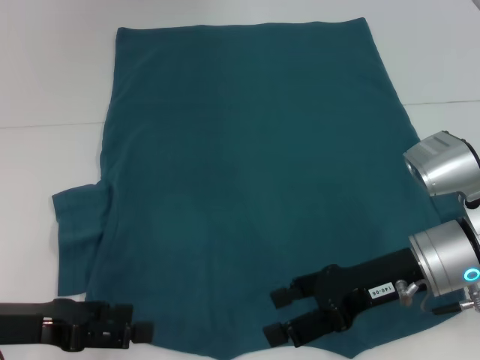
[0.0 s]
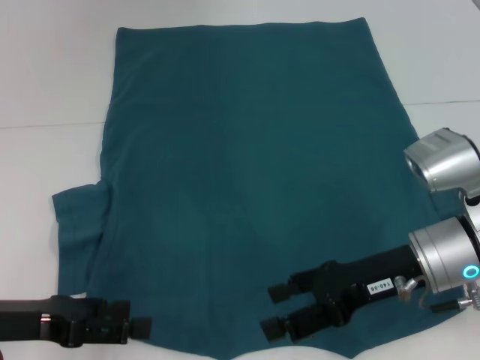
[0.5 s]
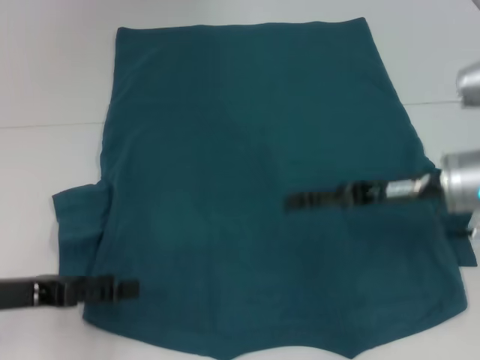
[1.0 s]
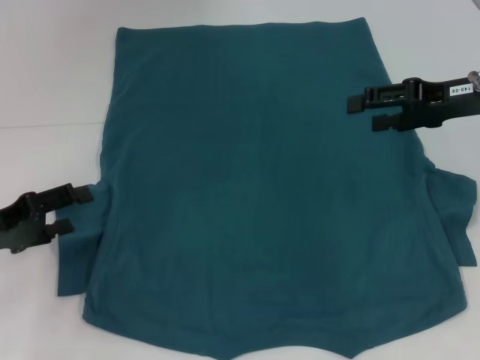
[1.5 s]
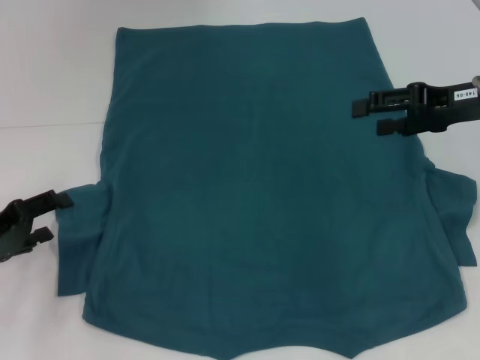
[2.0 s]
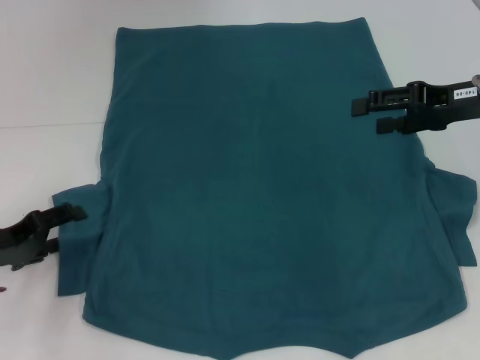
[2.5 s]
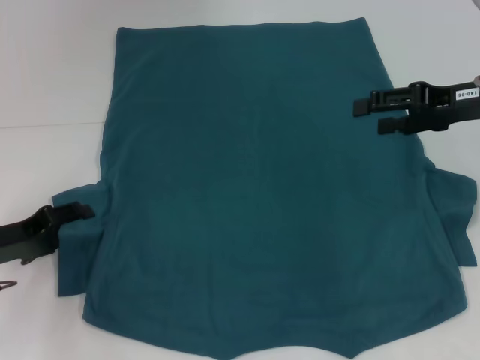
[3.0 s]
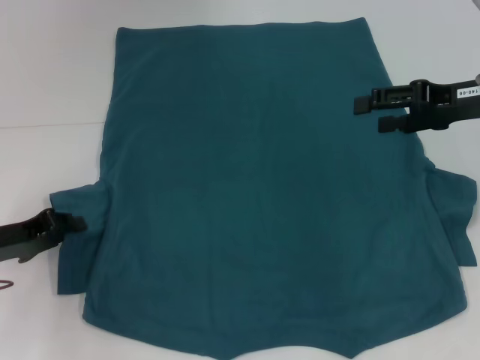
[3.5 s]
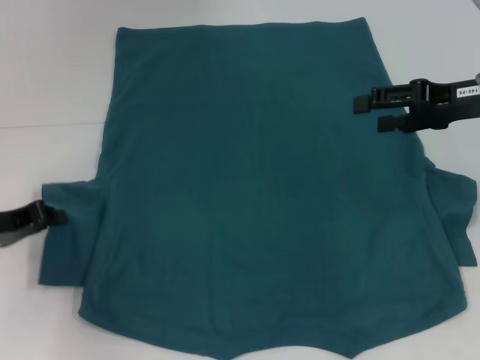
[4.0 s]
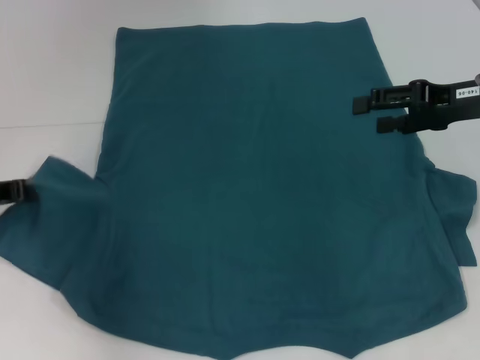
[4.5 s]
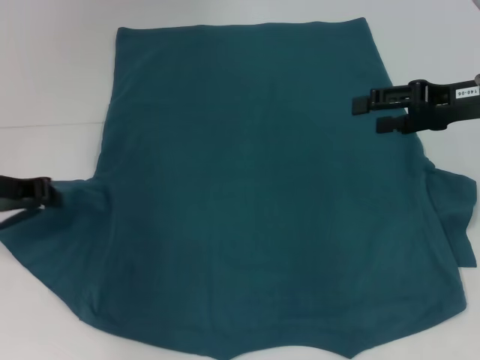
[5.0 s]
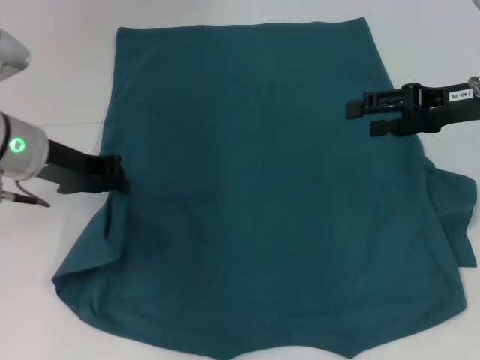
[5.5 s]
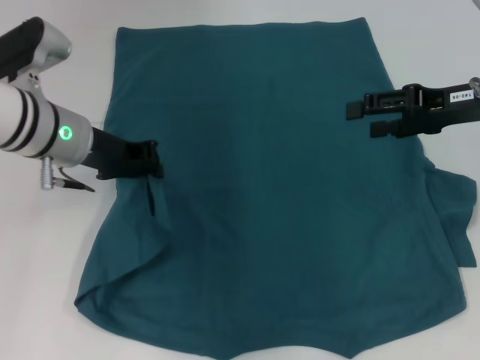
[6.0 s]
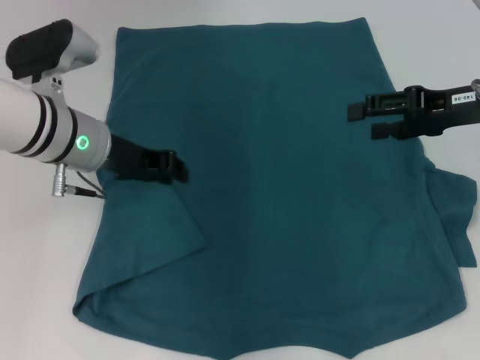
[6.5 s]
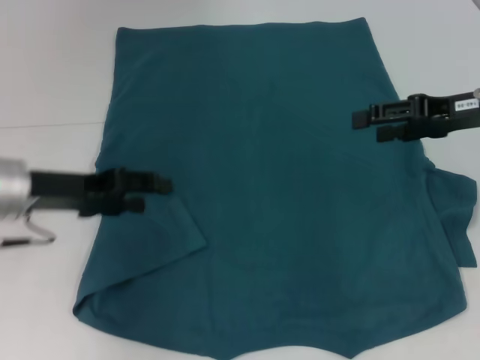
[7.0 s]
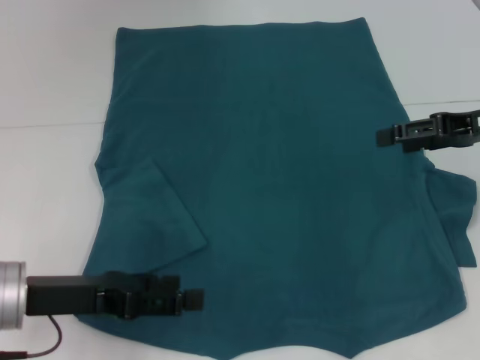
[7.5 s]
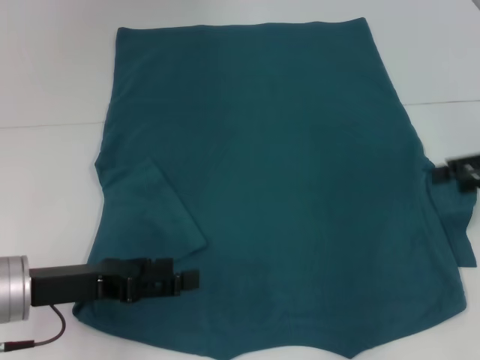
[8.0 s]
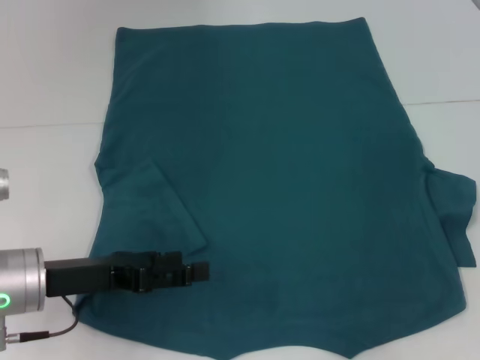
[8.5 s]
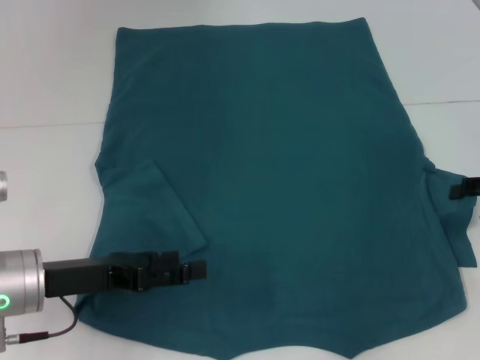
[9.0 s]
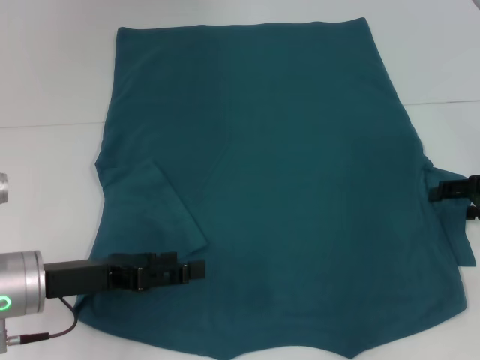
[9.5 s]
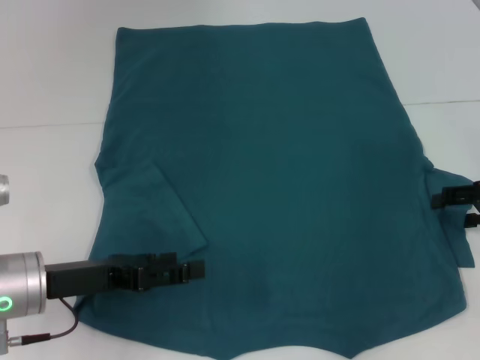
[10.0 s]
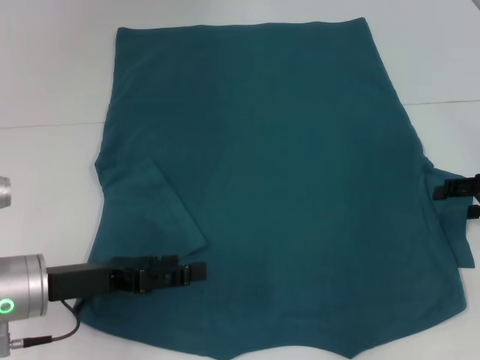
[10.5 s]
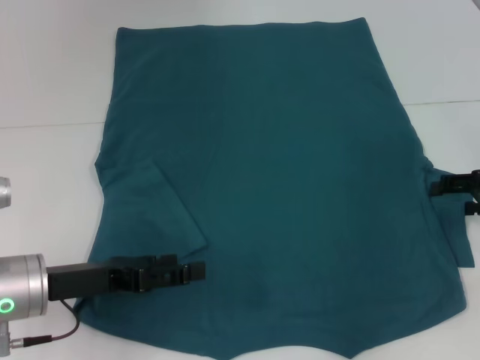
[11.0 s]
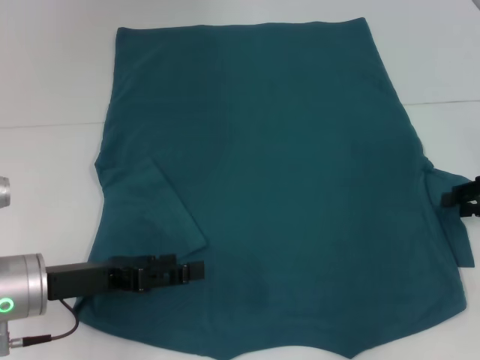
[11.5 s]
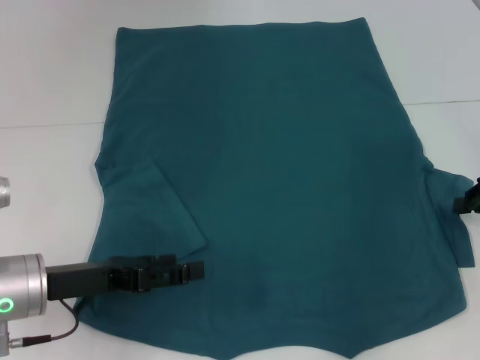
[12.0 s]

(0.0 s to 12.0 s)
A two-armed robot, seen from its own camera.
Step, 0.0 s - 6.5 s: Fold the bottom left sleeve with your left hand.
0.0 s - 2.0 s: The right gripper is displaced to the right, forward and upward by approximately 15 cm. The left gripper moves forward and to the left, about 10 cm.
2.0 s - 4.0 s: The left gripper closes up.
4.0 s - 6.0 s: The left gripper moves to the right, forward and upward, about 15 cm.
6.0 s - 8.0 s: The right gripper travels to the right by roughly 5 cm; the left gripper goes about 15 cm backward and downward, and opens its fingers.
8.0 s - 10.0 s: The right gripper goes about 5 cm downward.
10.0 s - 12.0 s: The right gripper closes.

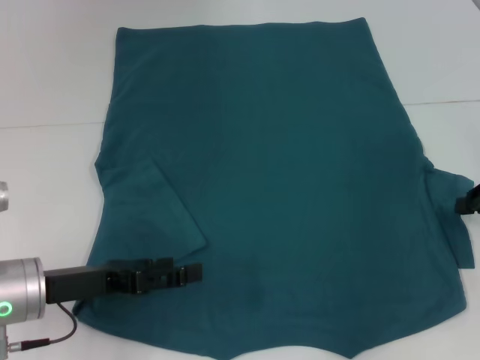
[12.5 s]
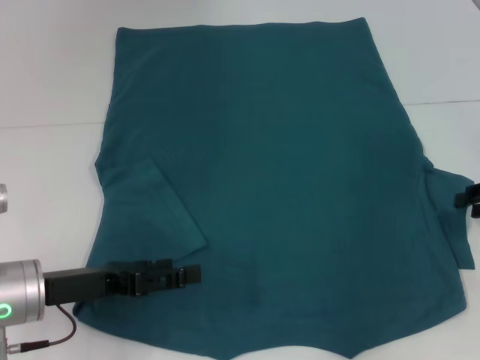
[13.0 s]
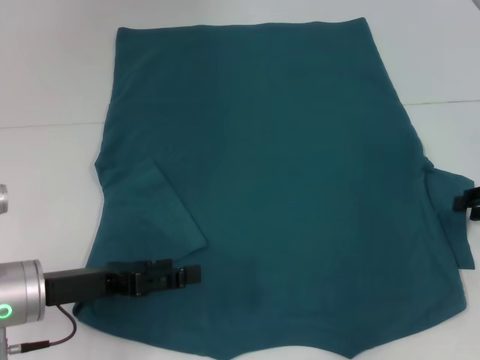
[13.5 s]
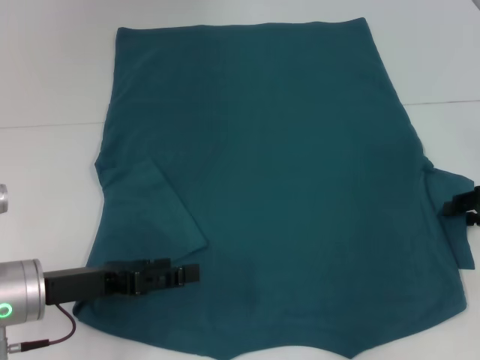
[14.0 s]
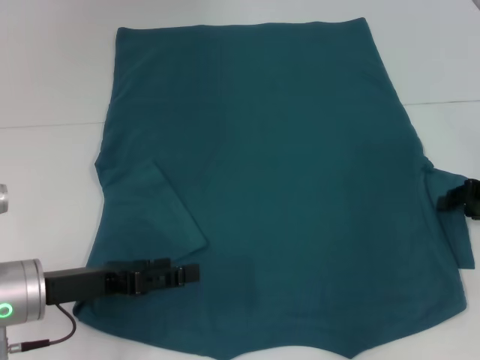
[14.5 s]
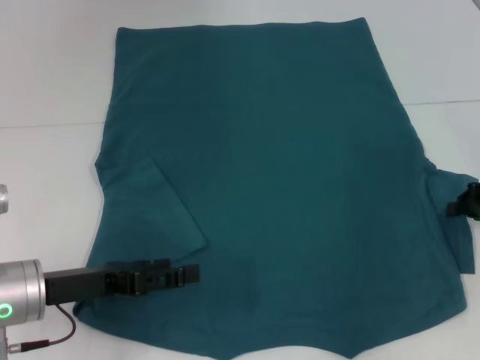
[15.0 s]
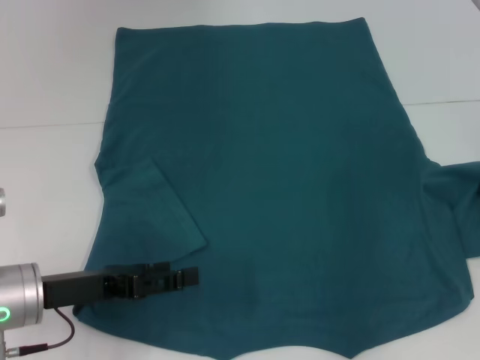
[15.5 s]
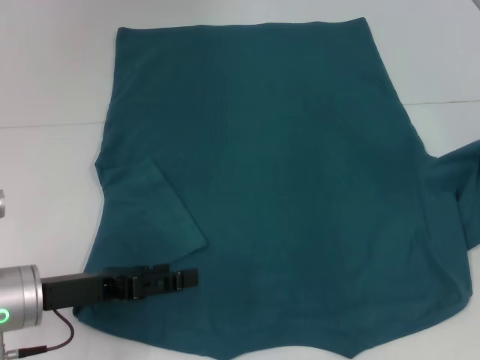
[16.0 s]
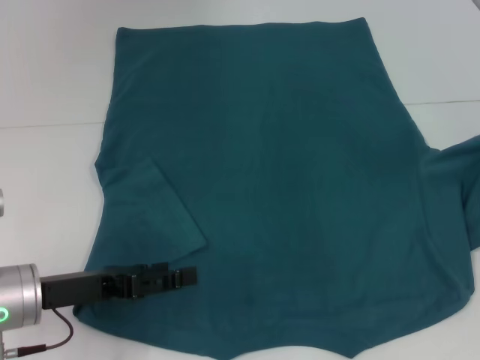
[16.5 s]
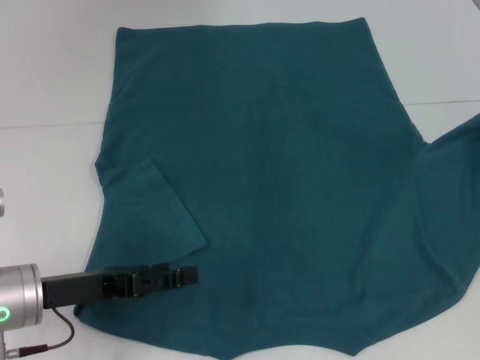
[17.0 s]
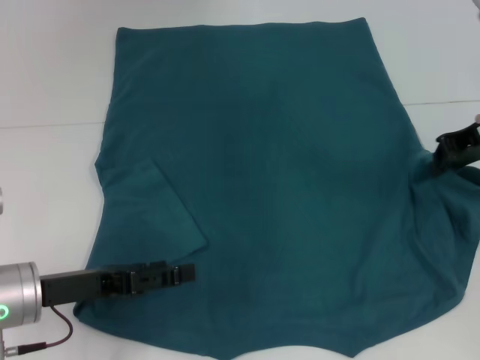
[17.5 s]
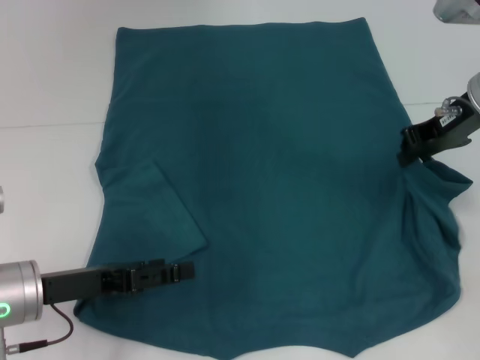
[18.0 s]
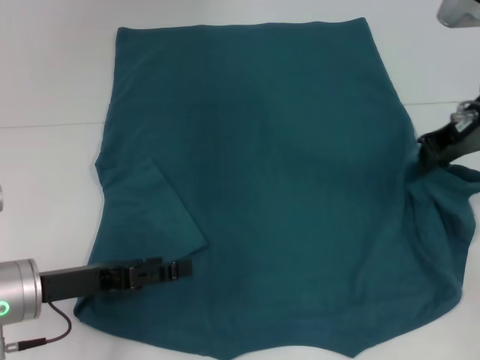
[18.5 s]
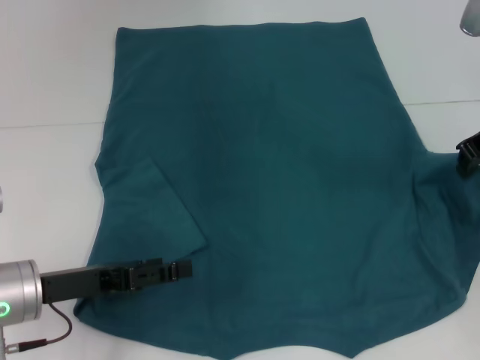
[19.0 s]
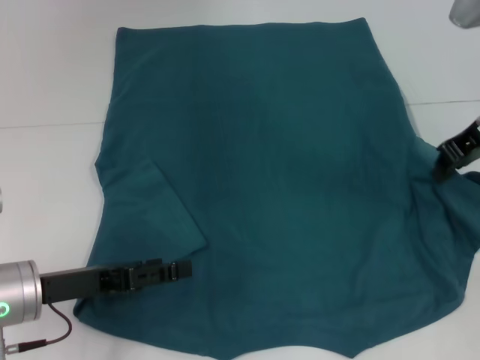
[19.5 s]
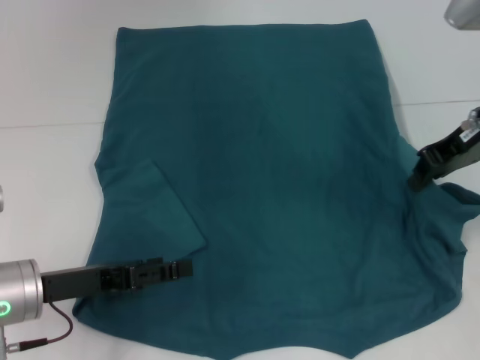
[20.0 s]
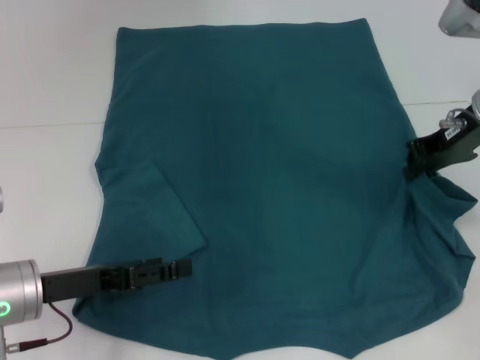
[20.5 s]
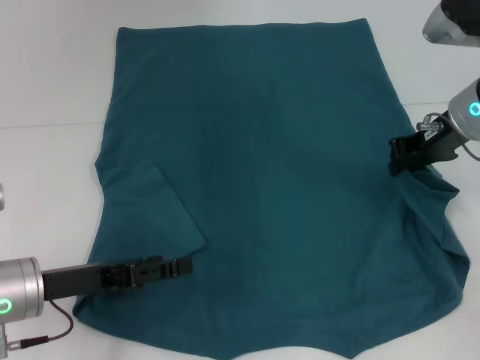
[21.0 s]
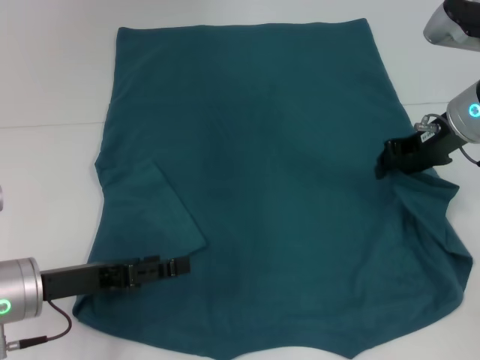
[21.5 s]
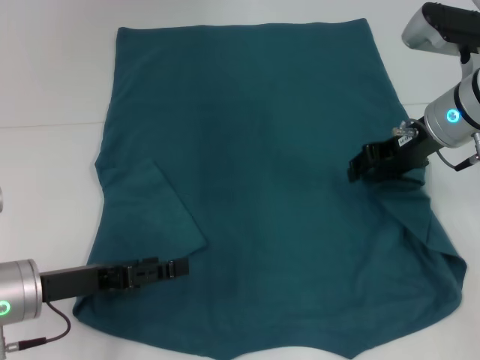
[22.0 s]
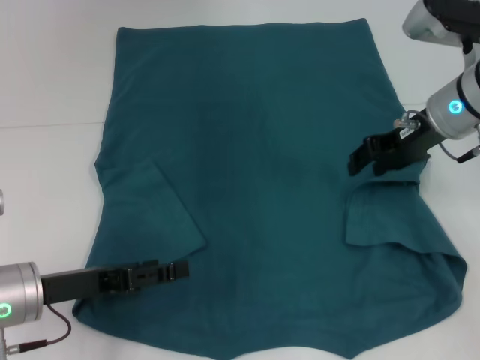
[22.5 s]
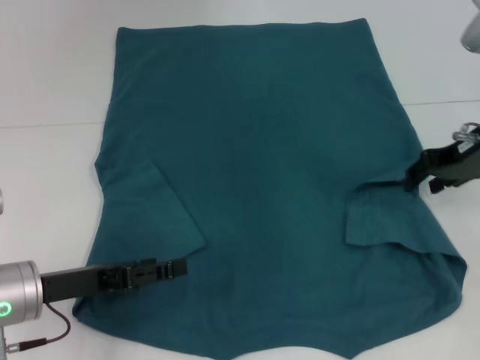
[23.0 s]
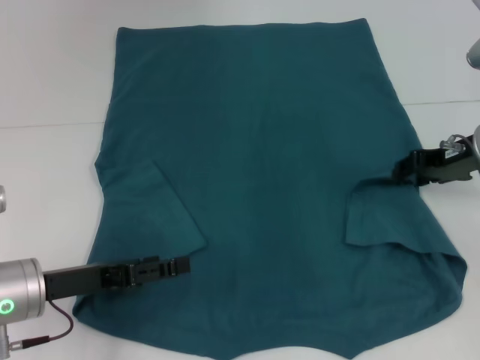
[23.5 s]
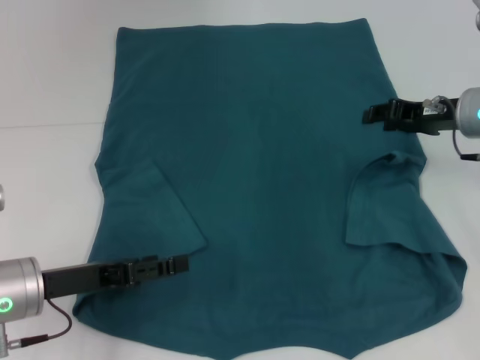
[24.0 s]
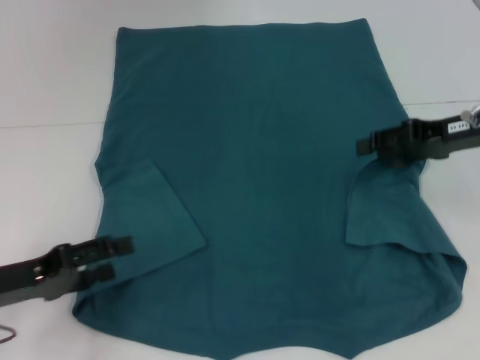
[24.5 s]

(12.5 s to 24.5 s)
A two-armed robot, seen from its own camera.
Step, 12.5 s - 22.5 s: Fold the bottom right sleeve to the right.
14.5 s - 16.5 s: The right gripper is displaced upward by some 10 cm, and closes its fingers.
16.5 s - 18.5 s: The right gripper heads to the left, covering approximately 10 cm.
18.5 s - 20.5 s: The grippers stay close to where they were, moving slightly.
20.5 s - 22.5 s: The right gripper opens up.
22.5 s - 24.5 s: The right gripper moves to the right, roughly 5 cm, while the left gripper shifts roughly 5 cm to the left.

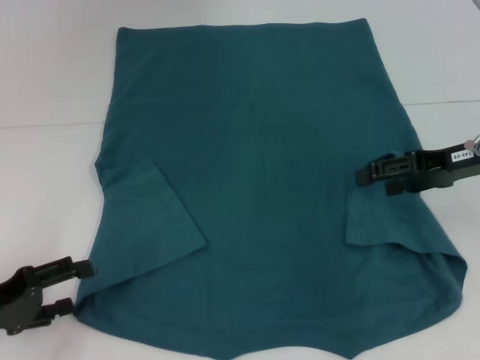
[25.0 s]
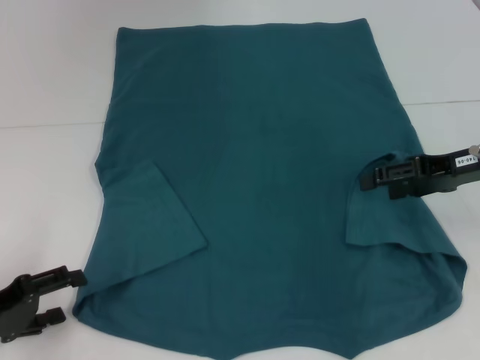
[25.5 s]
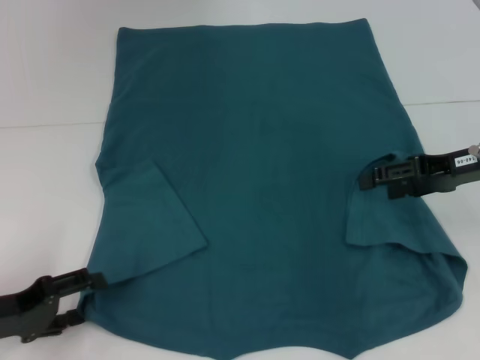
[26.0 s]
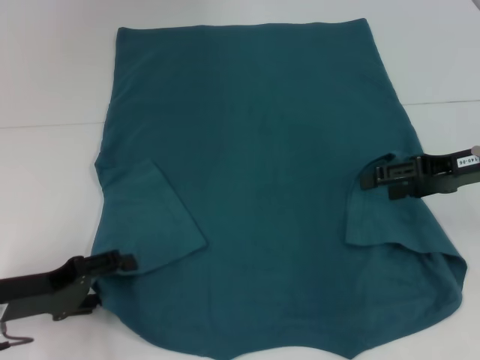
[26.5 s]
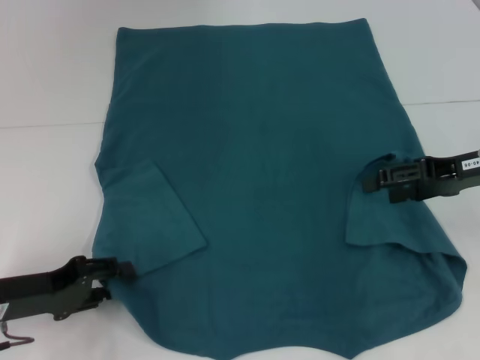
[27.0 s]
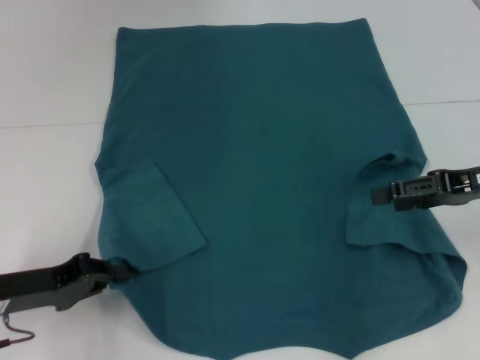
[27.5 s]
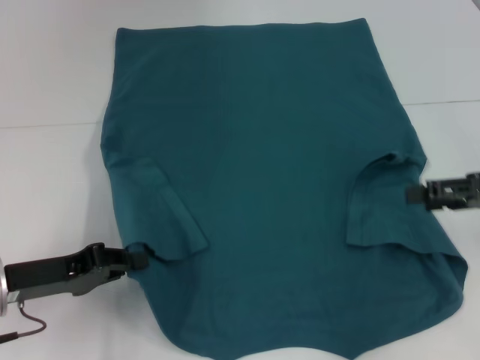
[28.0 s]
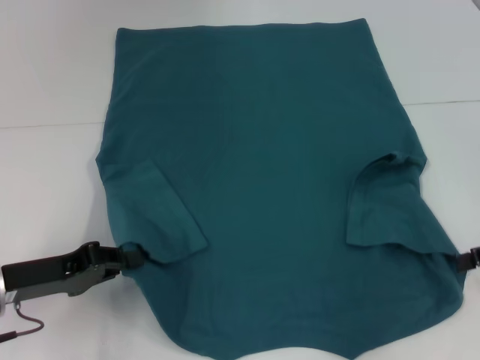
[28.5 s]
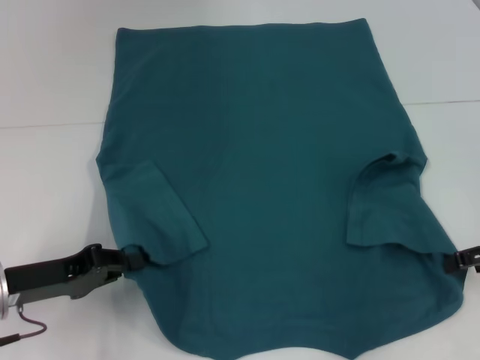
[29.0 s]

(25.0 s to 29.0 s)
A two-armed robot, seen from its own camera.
Step, 25.0 s - 27.0 s: Grab the bottom left corner with your left hand.
25.0 s - 27.0 s: The left gripper ends up some 5 cm from where it was.
27.0 s - 29.0 s: The left gripper closes its fingers. The right gripper shifts approximately 5 cm to the right.
